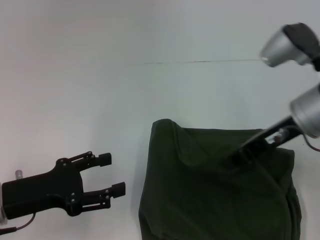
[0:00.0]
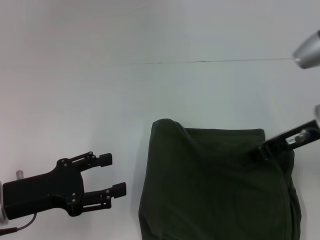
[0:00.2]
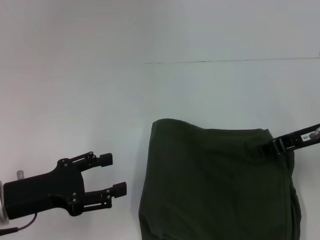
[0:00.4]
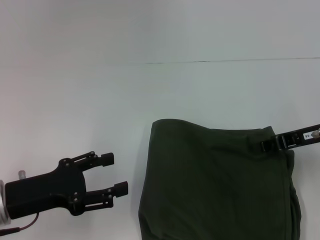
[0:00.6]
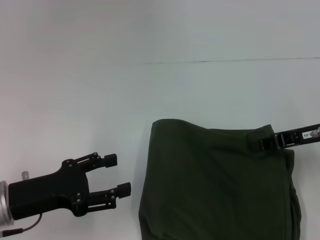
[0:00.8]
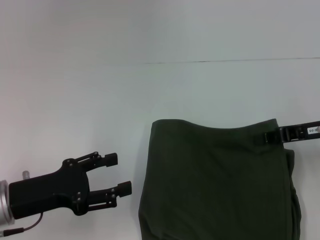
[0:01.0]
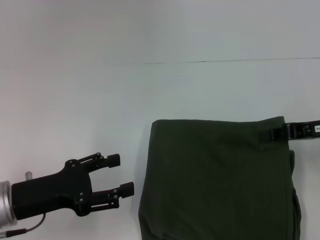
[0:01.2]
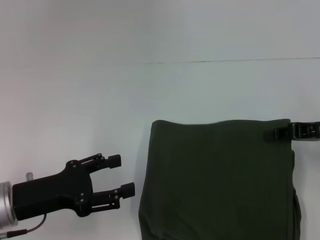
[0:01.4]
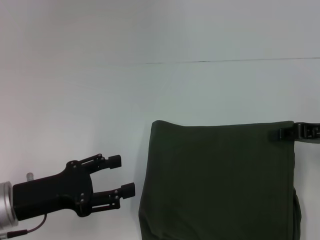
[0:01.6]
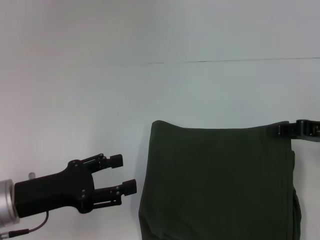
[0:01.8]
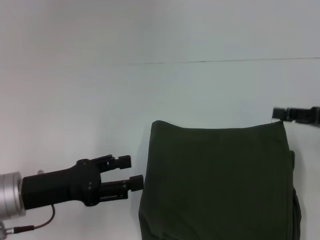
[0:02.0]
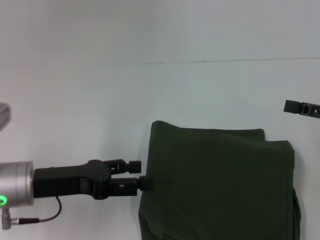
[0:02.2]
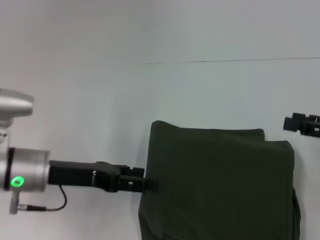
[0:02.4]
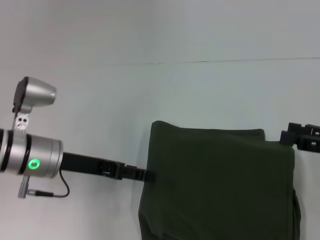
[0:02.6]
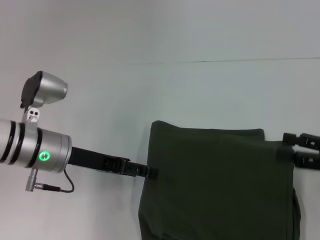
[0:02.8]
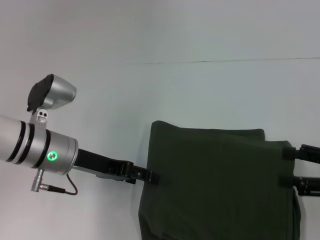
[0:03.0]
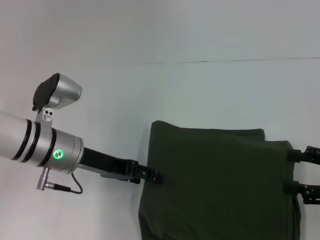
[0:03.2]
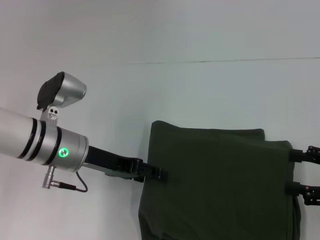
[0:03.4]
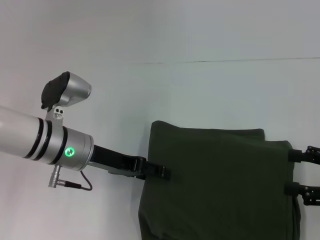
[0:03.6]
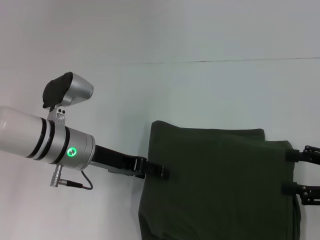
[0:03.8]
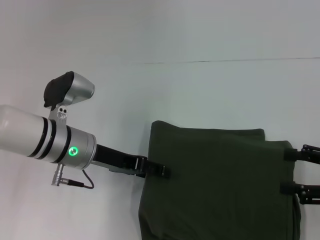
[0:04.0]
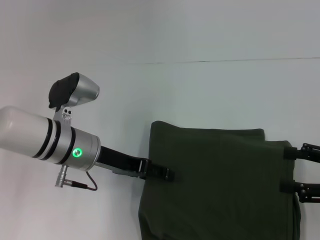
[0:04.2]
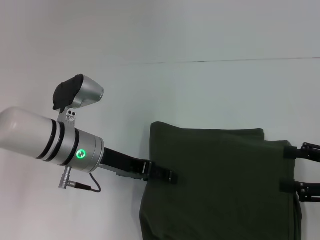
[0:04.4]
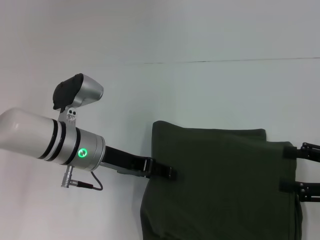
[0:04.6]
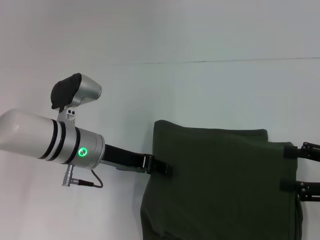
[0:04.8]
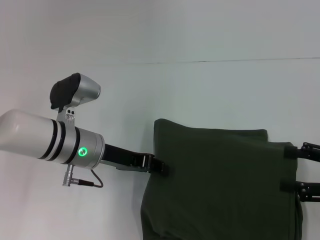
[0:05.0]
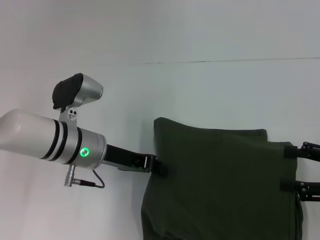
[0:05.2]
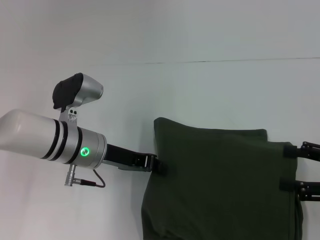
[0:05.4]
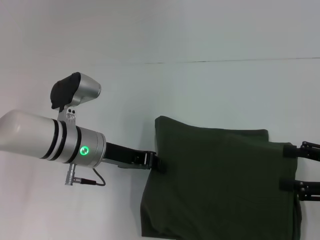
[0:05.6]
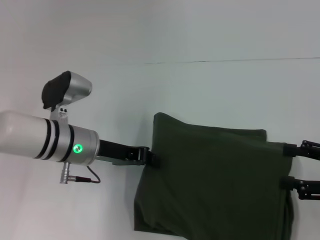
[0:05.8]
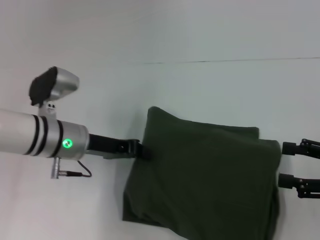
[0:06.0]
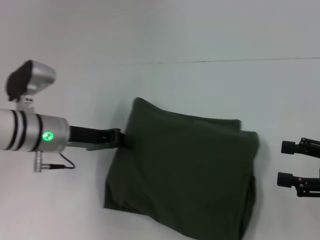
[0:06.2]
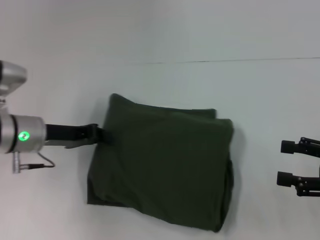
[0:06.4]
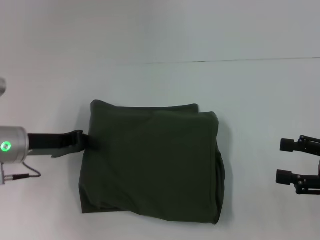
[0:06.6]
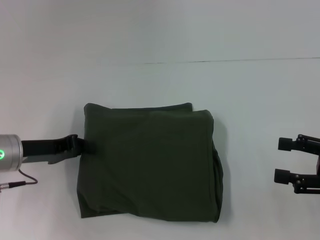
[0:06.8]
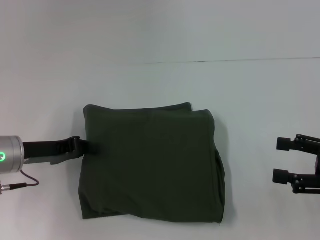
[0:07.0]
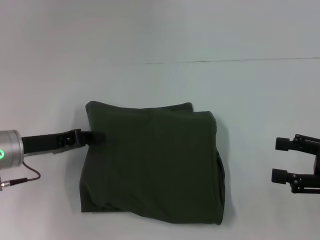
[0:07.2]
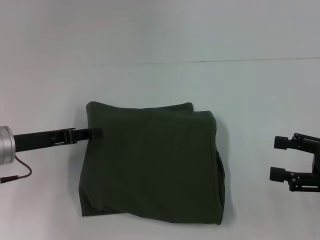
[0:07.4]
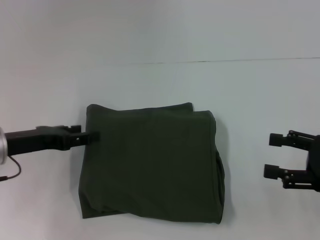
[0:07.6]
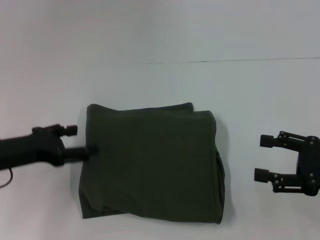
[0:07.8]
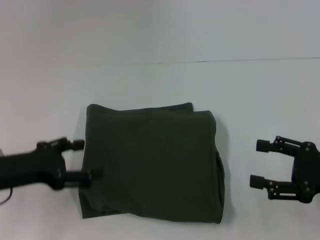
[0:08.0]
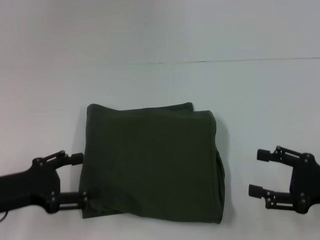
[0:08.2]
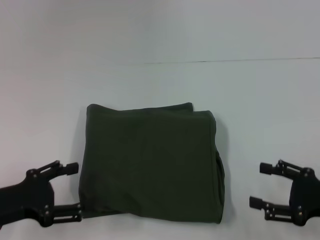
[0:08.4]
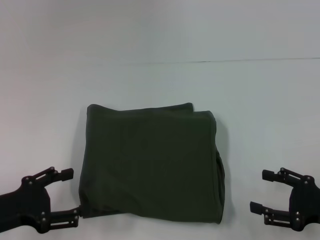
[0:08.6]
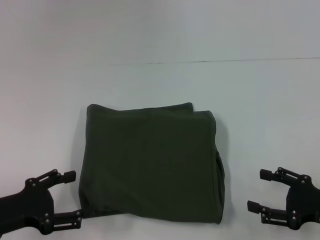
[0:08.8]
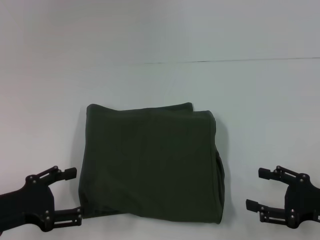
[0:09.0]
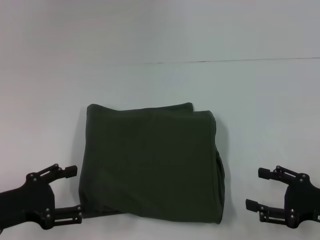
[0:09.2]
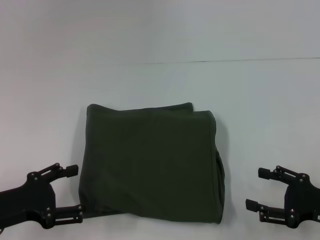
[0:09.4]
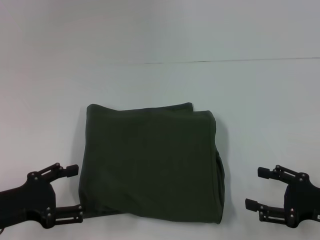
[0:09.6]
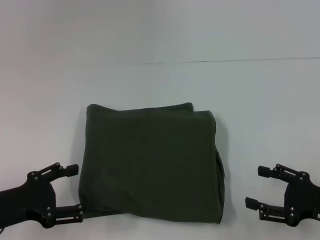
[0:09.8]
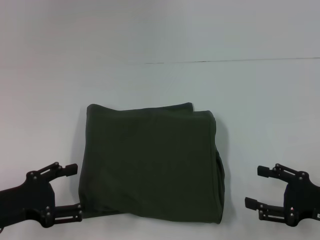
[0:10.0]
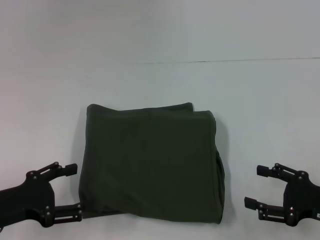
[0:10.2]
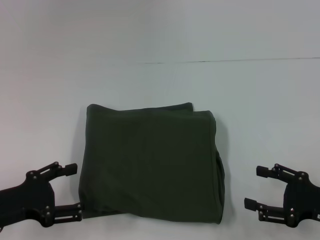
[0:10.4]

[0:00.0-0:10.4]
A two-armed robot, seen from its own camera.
0:00.0 to 0:01.4: The right gripper is displaced to the right and downward by approximately 10 cm.
0:01.4 to 0:03.0: The right gripper travels backward by roughly 10 cm, and opens up, while the left gripper travels forward and to the right by some 10 cm.
0:03.0 to 0:04.4: The grippers move only a little.
0:04.4 to 0:06.0: The left gripper closes its fingers.
0:06.0 to 0:07.4: The left gripper is displaced to the left by approximately 10 cm, and opens.
0:07.4 to 0:09.0: The left gripper shifts some 10 cm backward, and opens up. The right gripper travels downward by approximately 10 cm.
0:09.0 to 0:10.4: Neither gripper changes place.
